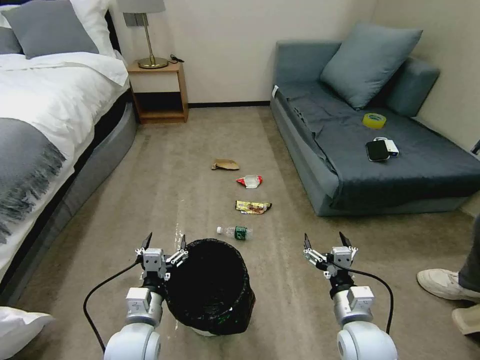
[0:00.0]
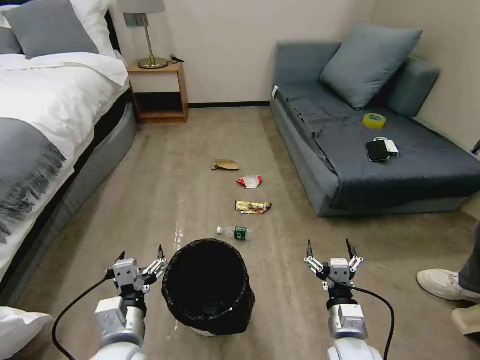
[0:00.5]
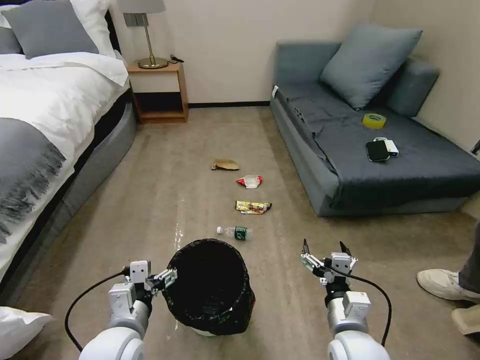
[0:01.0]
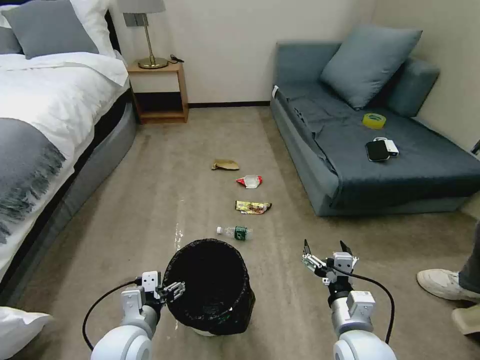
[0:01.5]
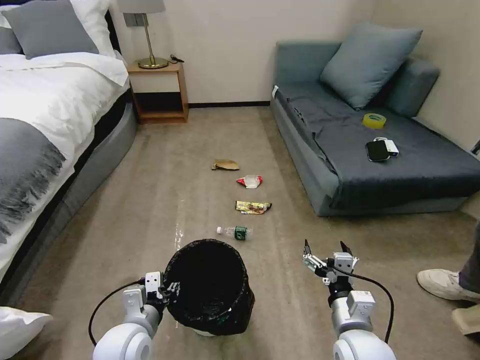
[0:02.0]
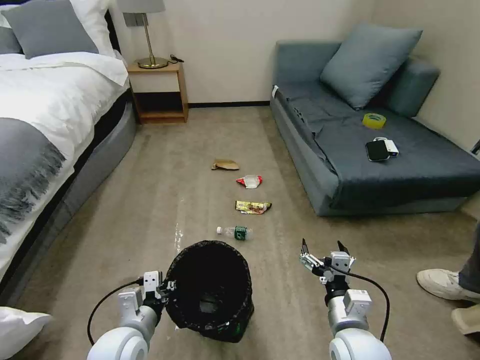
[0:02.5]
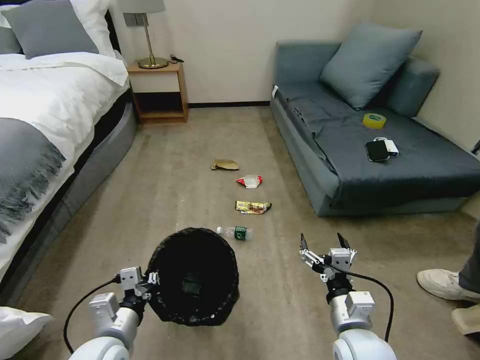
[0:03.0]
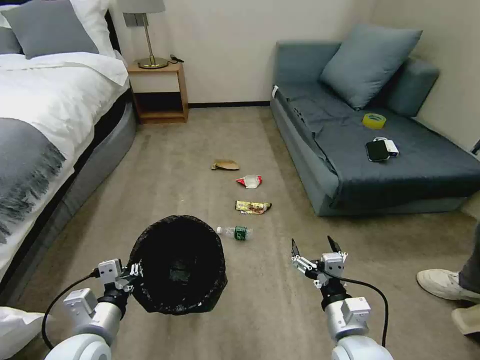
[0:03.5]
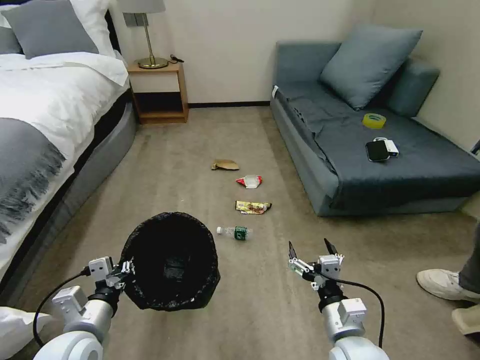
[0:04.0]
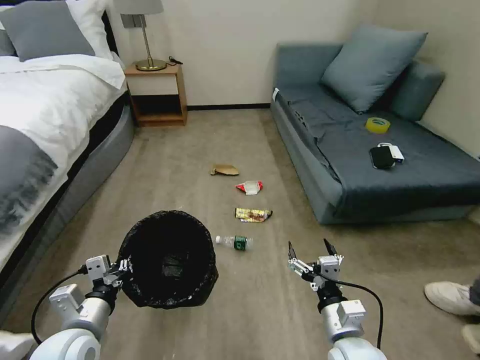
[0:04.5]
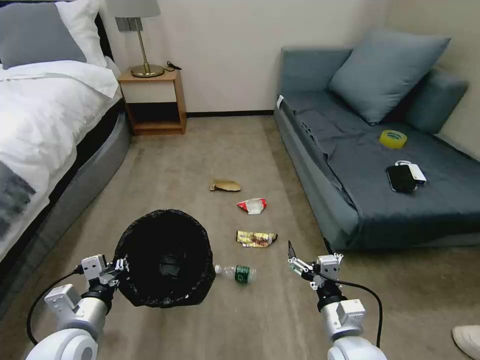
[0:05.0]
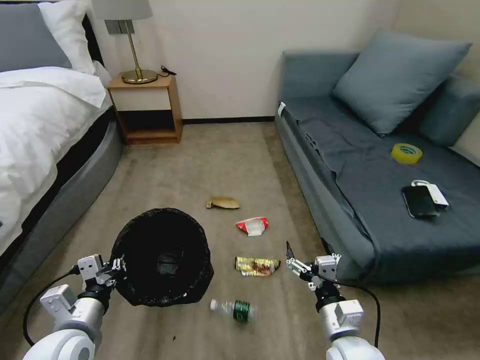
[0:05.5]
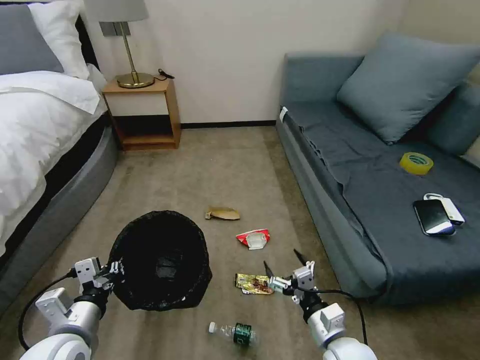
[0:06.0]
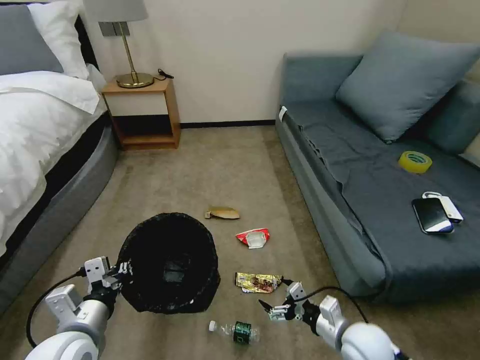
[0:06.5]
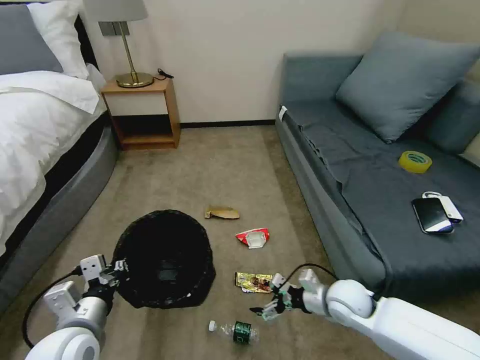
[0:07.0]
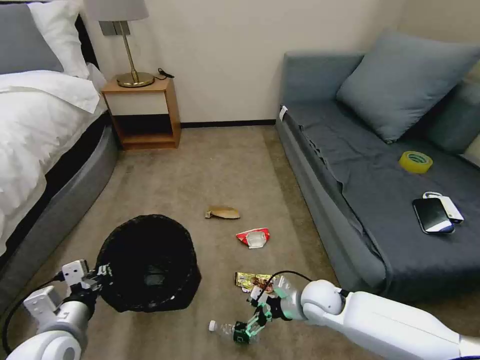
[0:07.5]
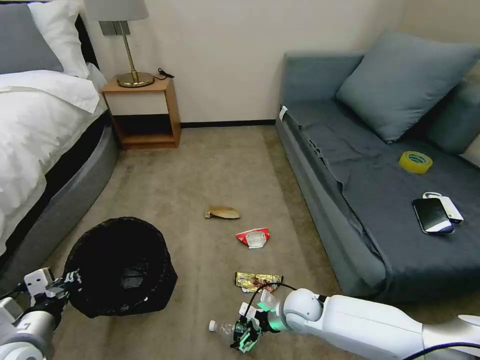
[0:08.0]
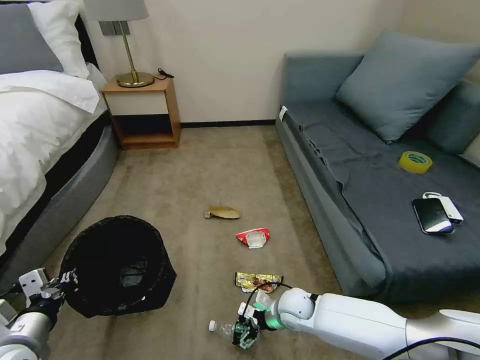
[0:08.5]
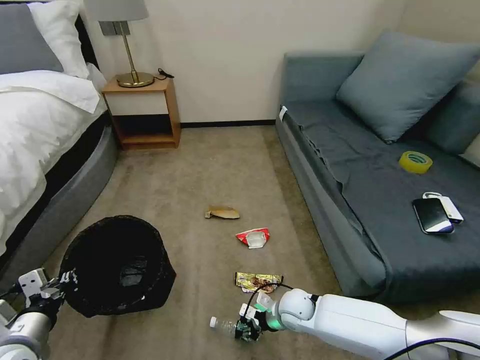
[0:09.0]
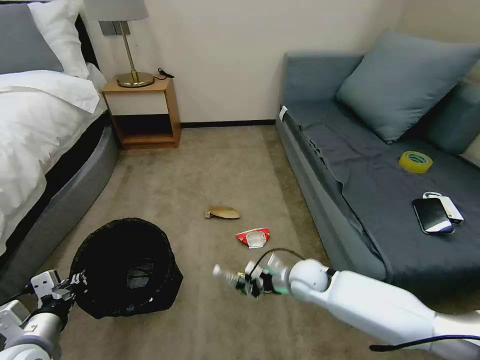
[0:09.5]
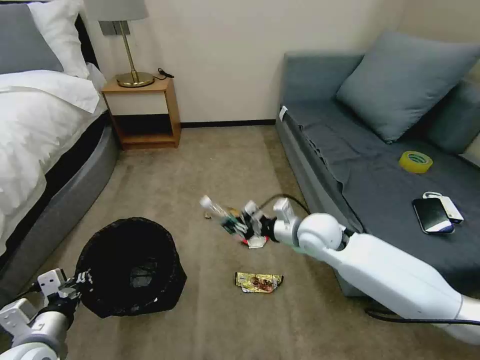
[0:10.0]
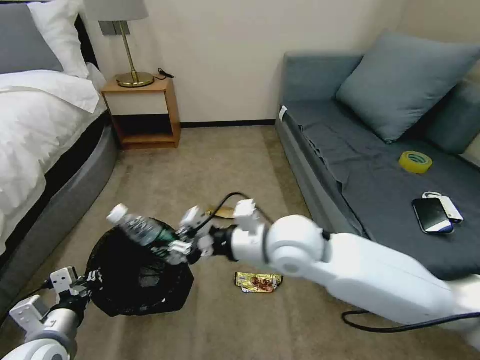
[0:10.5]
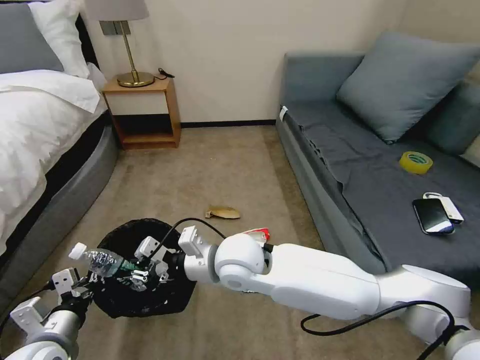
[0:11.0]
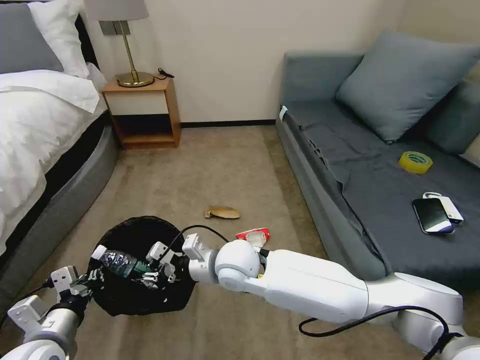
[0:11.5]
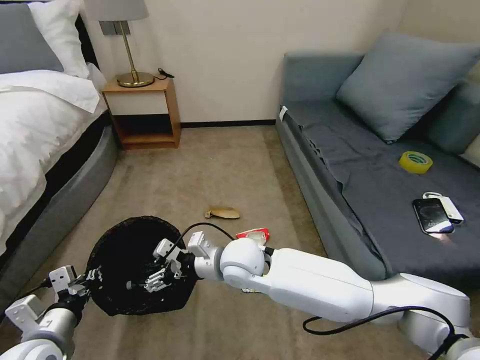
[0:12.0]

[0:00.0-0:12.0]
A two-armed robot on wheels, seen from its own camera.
Task of the whole recording: Pick up the trash bin, then pick up the garbage on the floor and place it into the trash bin.
2.0 to 4.0 s: The left gripper moves to the left, about 5 cm.
6.0 to 8.0 s: The right gripper moves forward, downward and to the left, roughly 15 cm. The left gripper moves to the left, roughly 5 cm.
8.0 to 10.0 s: The right gripper is displaced upward and forward by some 25 cm, and closes its fingers.
10.0 to 12.0 s: The right gripper heads to the left, covering roughly 15 cm, and opens up.

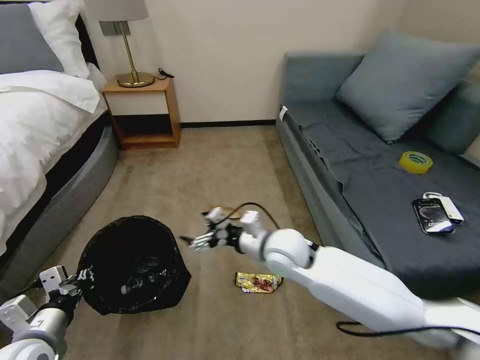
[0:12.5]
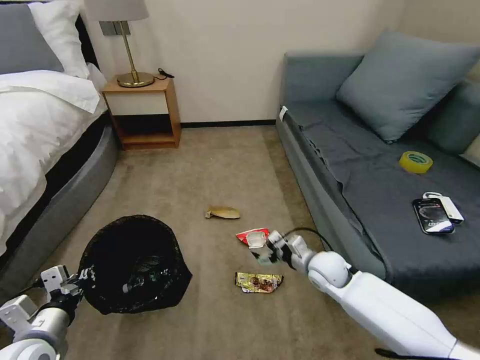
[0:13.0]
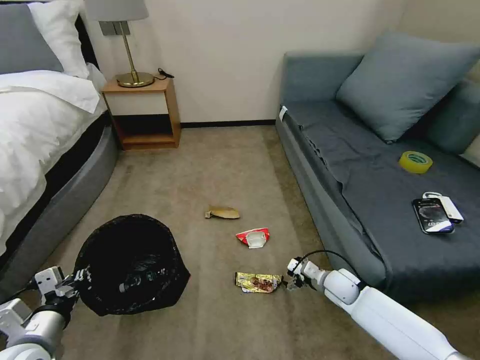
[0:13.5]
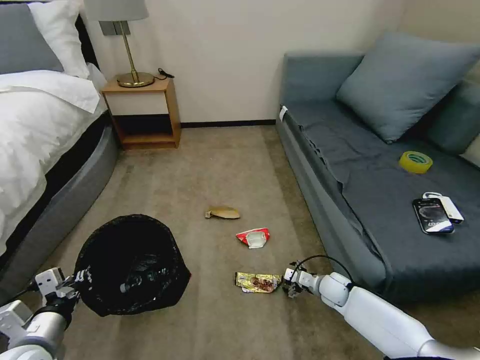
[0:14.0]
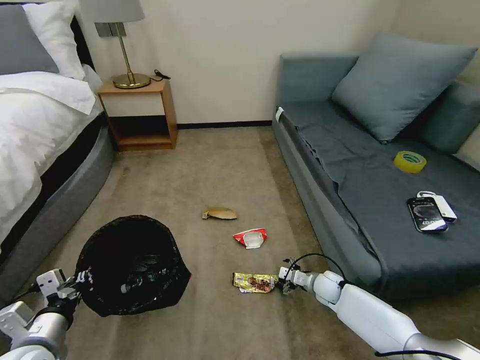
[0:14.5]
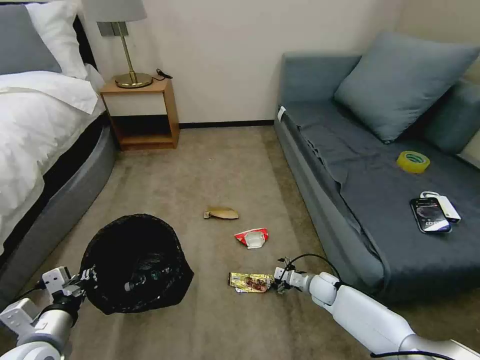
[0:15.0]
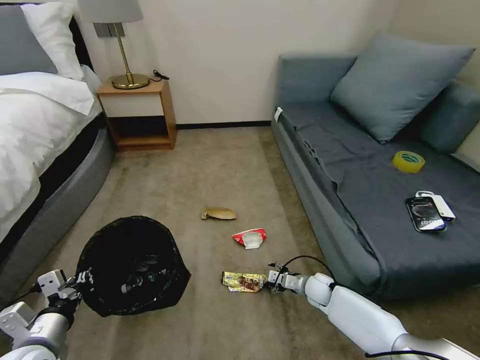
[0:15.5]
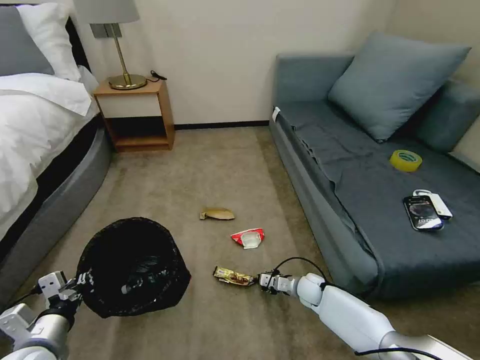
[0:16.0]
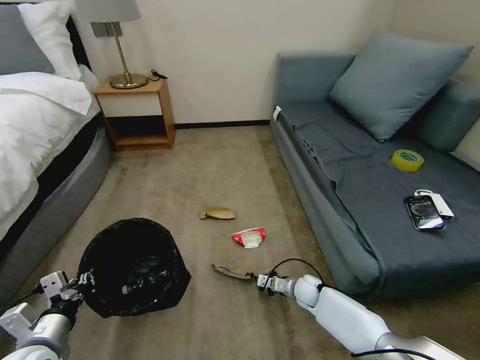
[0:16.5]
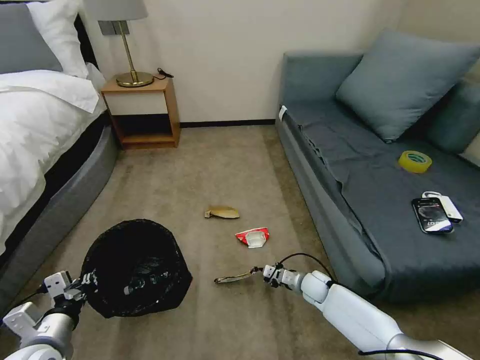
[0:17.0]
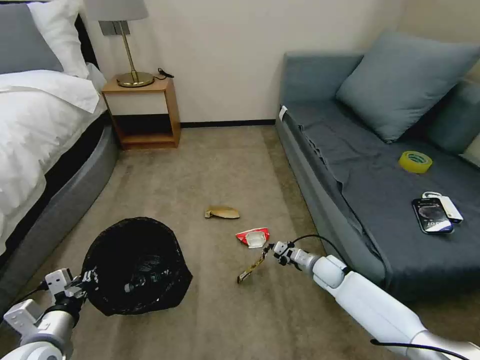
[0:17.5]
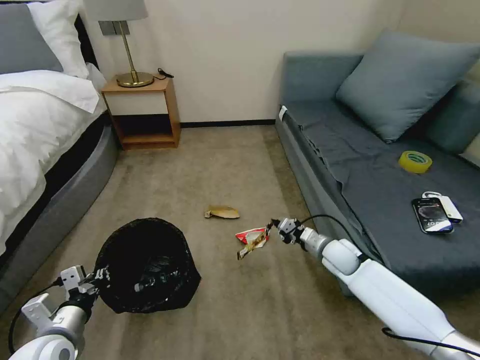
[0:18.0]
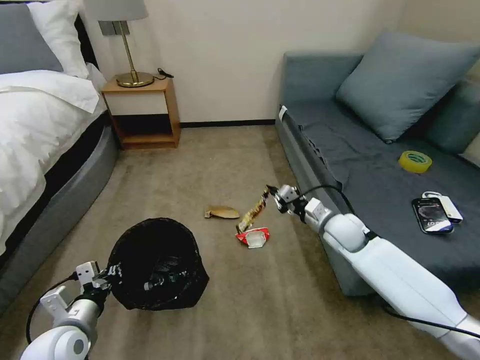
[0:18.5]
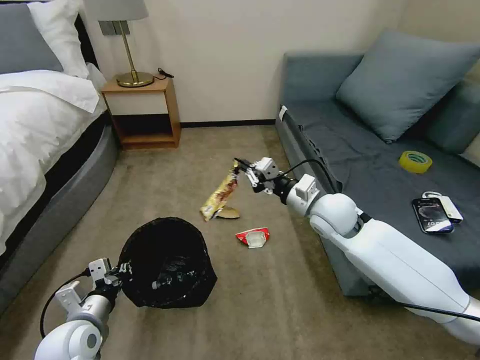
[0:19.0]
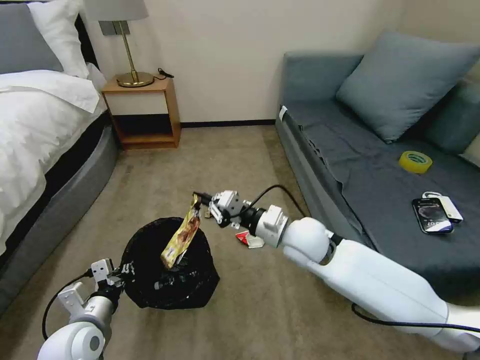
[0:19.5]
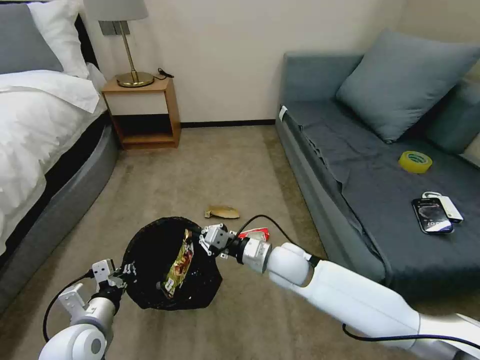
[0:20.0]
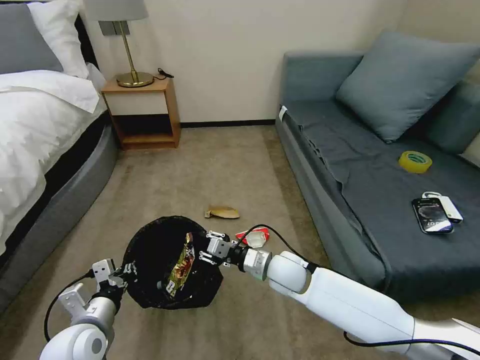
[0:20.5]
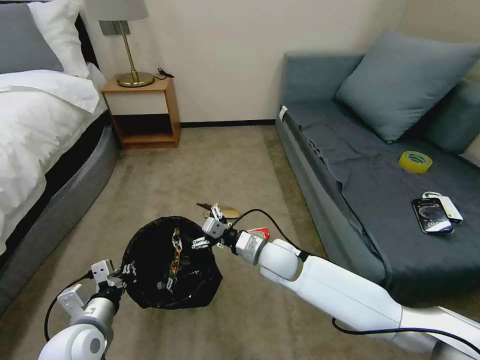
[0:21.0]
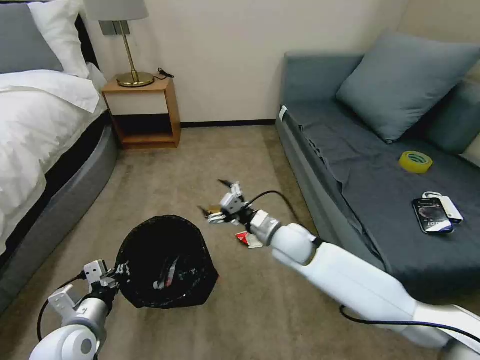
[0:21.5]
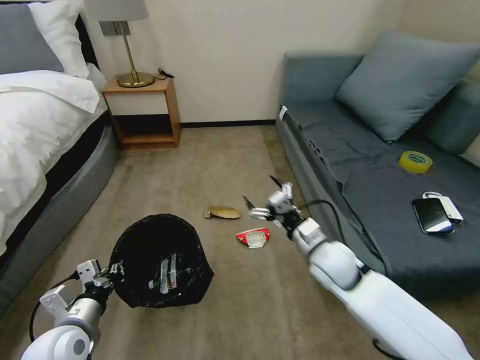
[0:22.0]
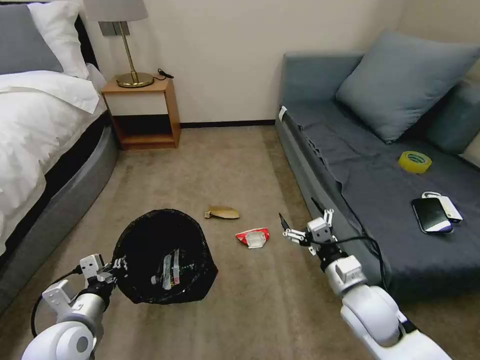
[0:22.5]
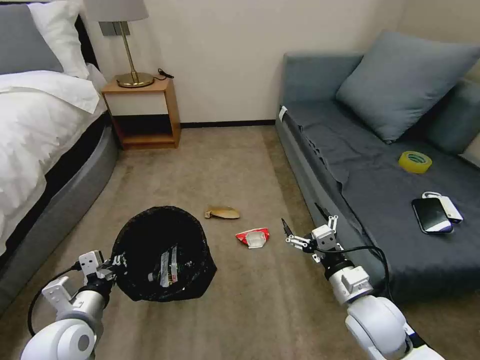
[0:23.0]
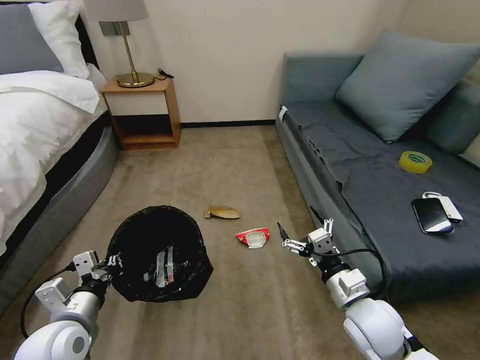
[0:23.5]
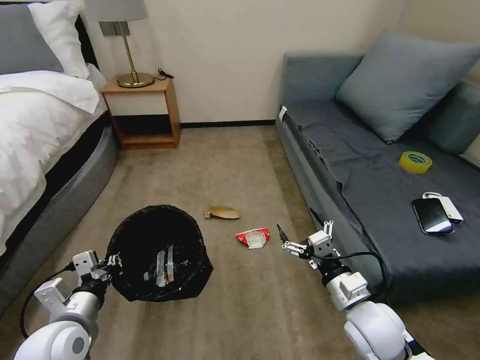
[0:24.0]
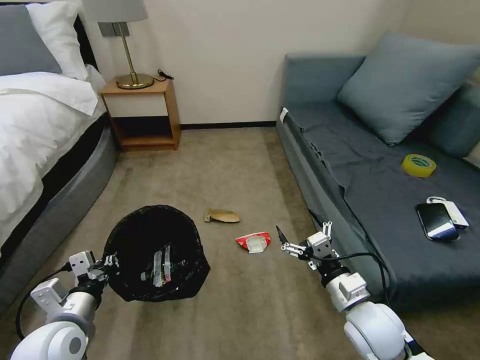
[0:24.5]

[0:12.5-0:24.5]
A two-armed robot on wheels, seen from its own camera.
Task of the whole recording: Pick up the trash bin, then pick up the garbage on the floor and place it into the trash bin.
12.5 to 14.5 s: The right gripper travels downward and to the right by approximately 30 cm.
14.5 to 16.5 s: The right gripper heads to the left, covering about 5 cm, and closes up.
16.5 to 18.5 s: The right gripper goes some 25 cm upward.
18.5 to 20.5 s: The right gripper goes about 20 cm to the left and backward, and opens.
20.5 to 22.5 s: The right gripper is displaced to the right and backward by some 15 cm, and opens its fingers.
22.5 to 24.5 s: The grippers stay close to where they were, moving slightly.

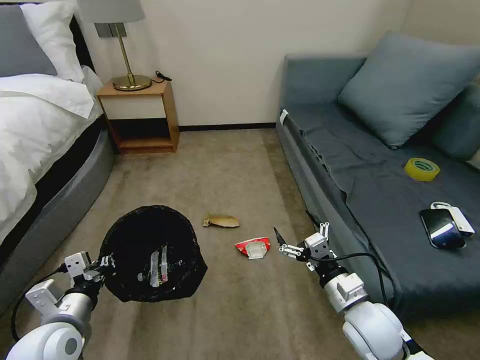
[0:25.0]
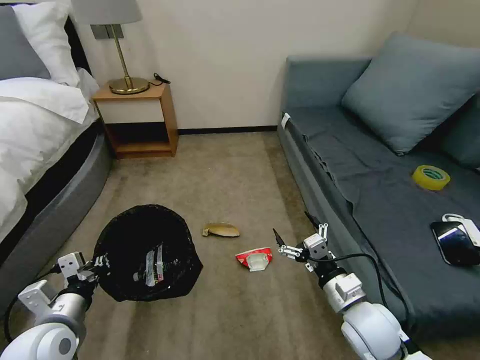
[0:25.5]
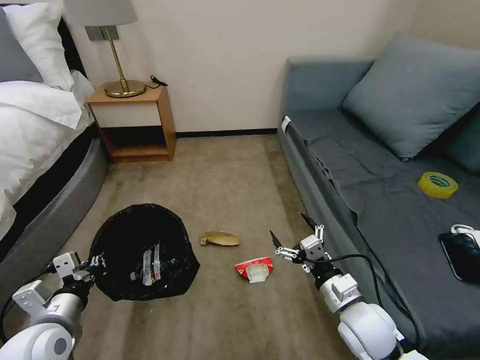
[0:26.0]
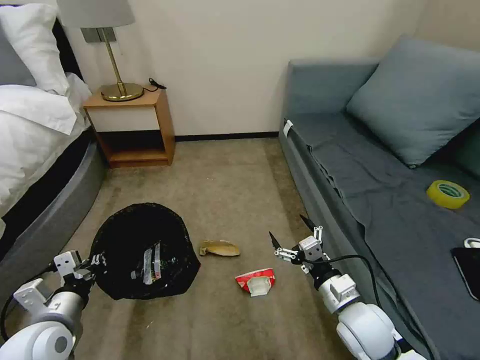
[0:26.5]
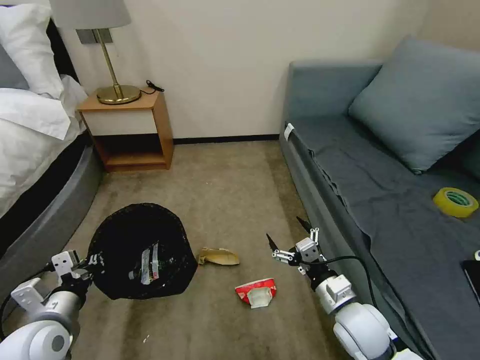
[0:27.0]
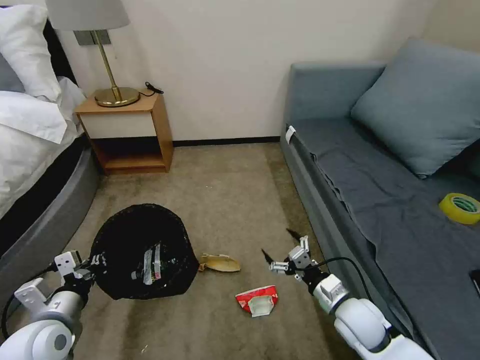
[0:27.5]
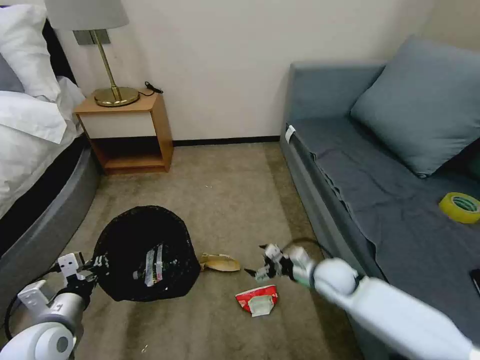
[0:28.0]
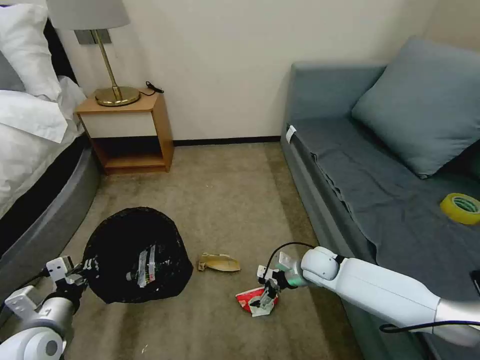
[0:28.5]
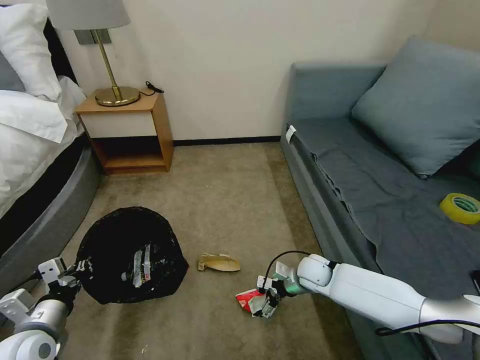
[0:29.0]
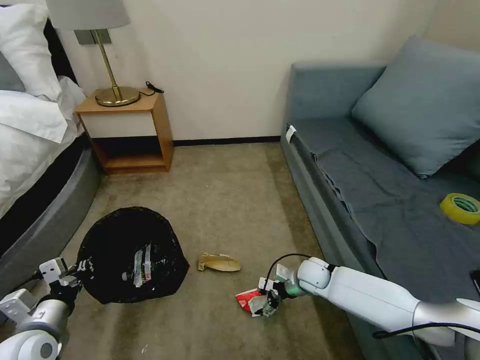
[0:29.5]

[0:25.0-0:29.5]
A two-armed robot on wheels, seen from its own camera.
Task of the whole recording: Pick up the trash bin, then pick up the garbage on the floor and place it into the trash bin.
27.0 to 29.5 s: The right gripper moves forward and downward, some 20 cm.
